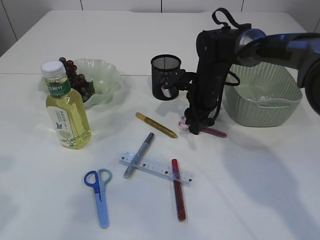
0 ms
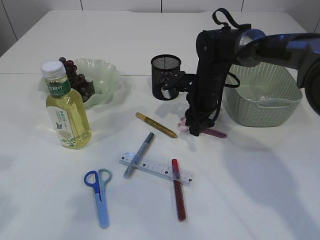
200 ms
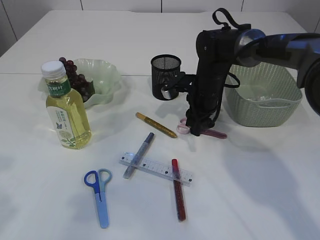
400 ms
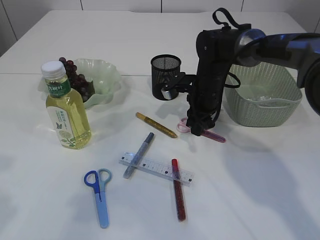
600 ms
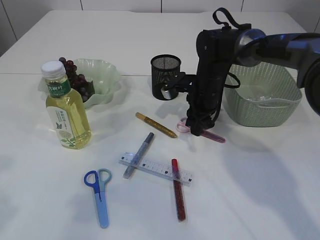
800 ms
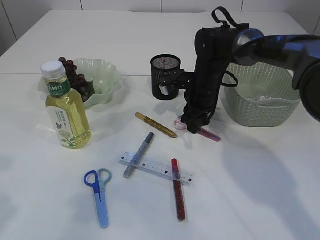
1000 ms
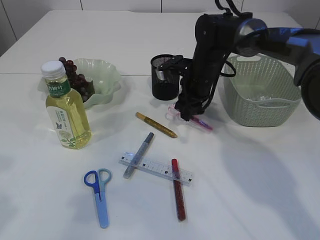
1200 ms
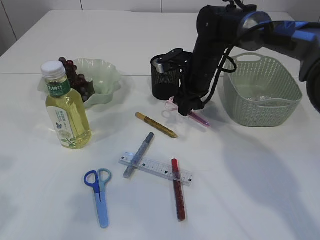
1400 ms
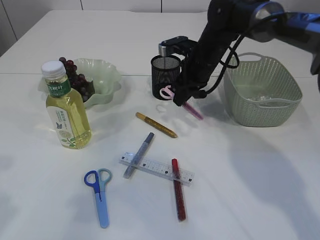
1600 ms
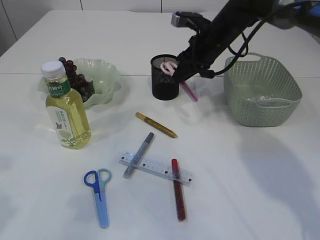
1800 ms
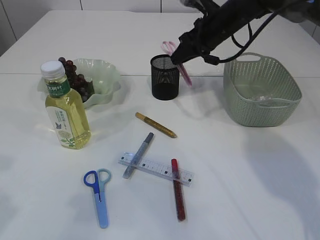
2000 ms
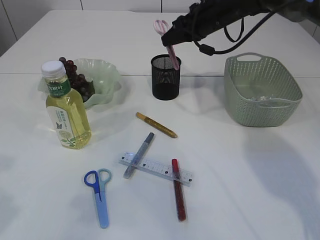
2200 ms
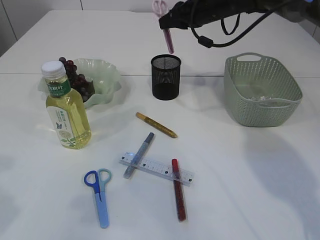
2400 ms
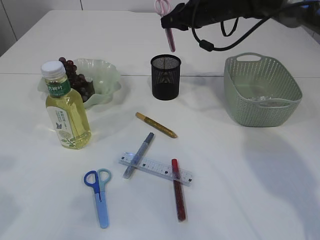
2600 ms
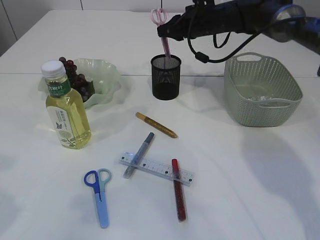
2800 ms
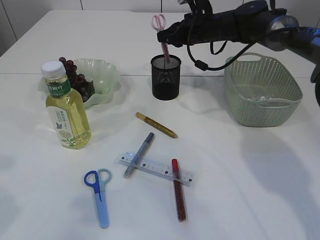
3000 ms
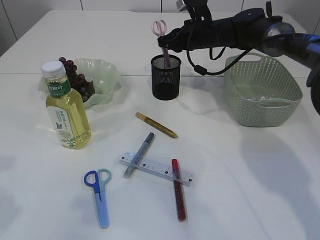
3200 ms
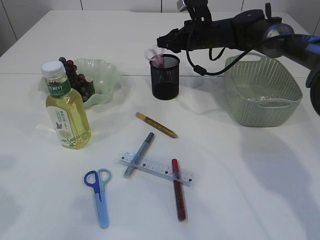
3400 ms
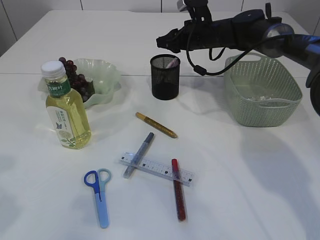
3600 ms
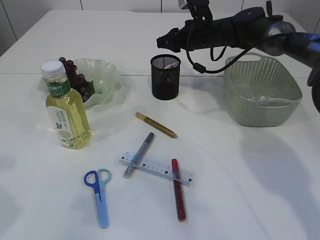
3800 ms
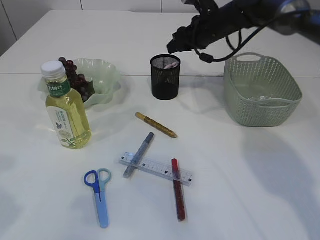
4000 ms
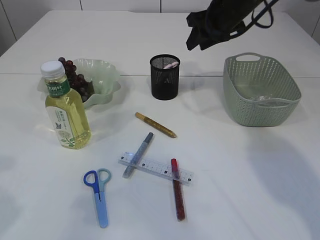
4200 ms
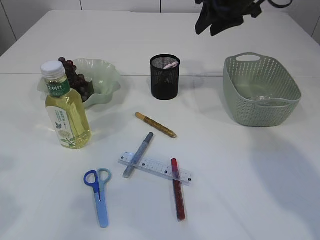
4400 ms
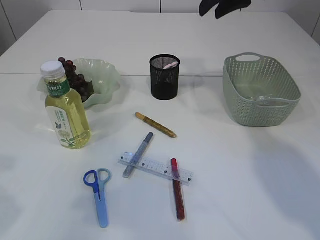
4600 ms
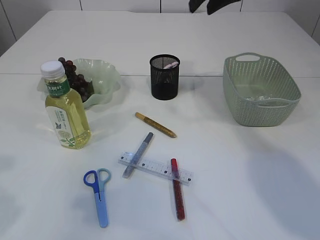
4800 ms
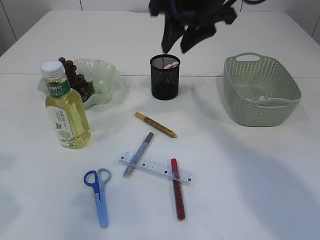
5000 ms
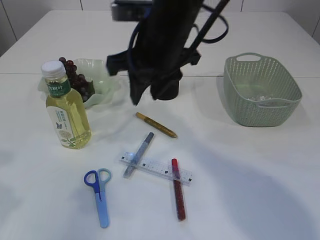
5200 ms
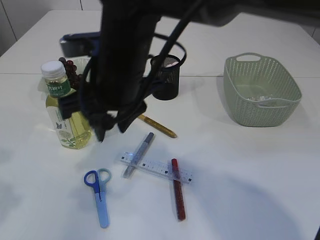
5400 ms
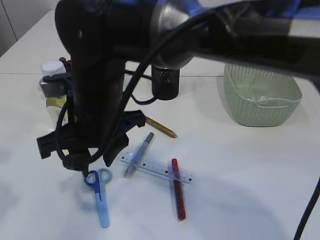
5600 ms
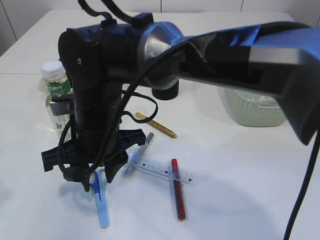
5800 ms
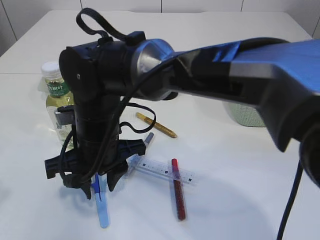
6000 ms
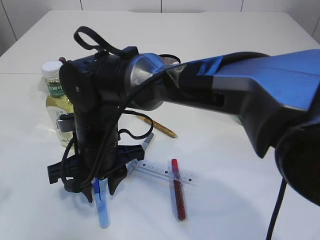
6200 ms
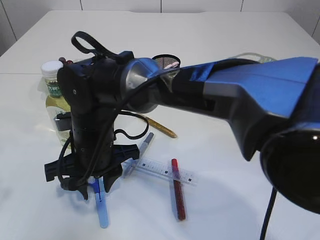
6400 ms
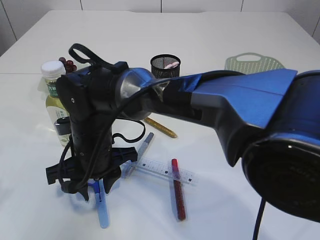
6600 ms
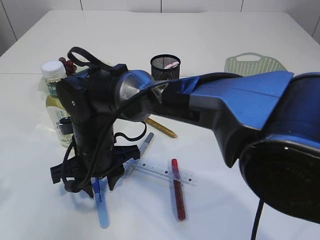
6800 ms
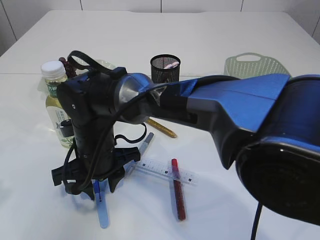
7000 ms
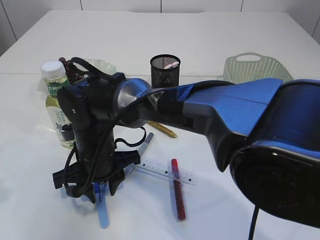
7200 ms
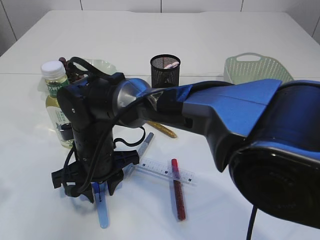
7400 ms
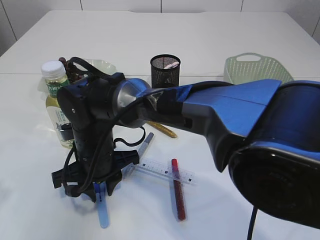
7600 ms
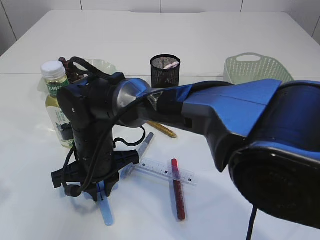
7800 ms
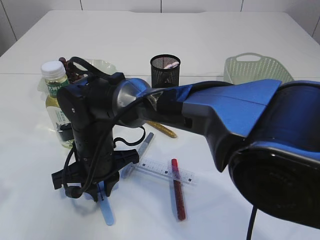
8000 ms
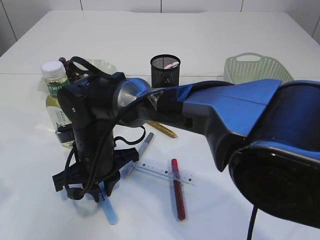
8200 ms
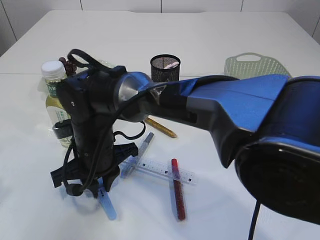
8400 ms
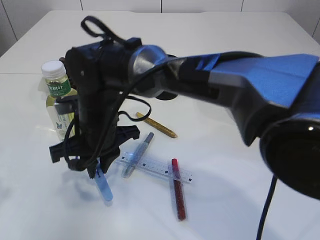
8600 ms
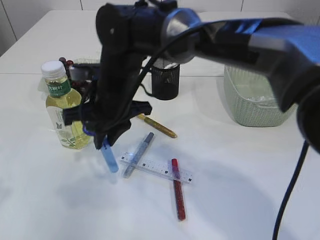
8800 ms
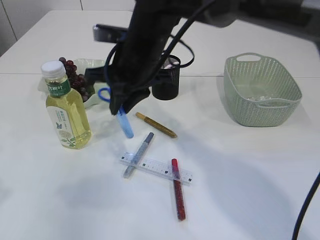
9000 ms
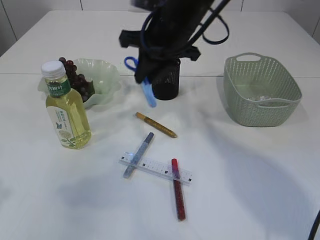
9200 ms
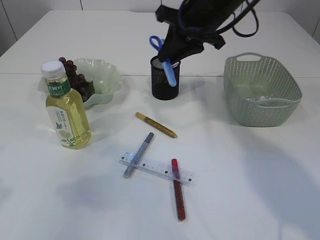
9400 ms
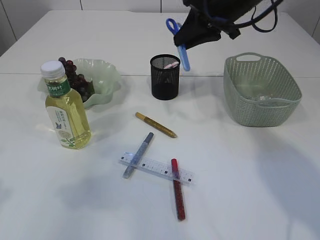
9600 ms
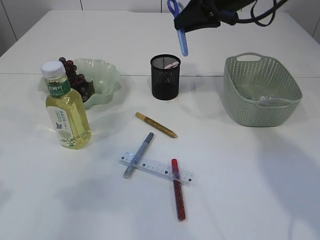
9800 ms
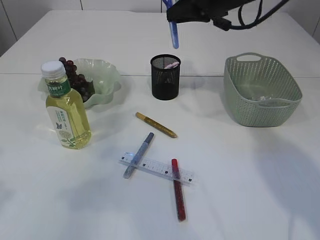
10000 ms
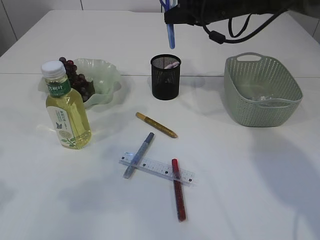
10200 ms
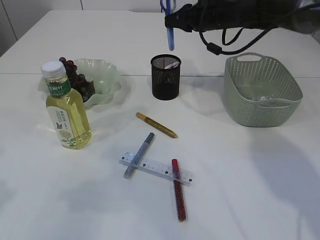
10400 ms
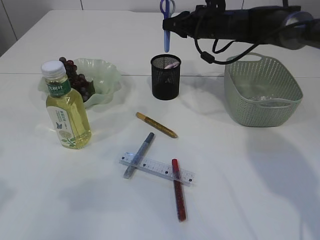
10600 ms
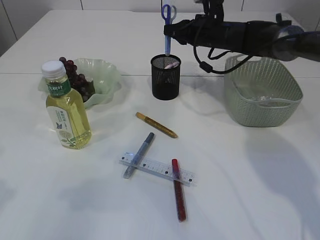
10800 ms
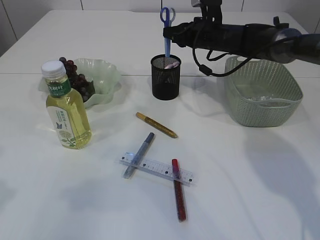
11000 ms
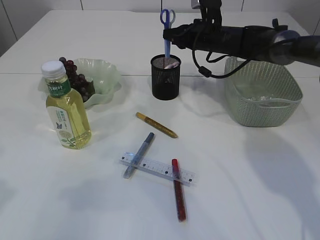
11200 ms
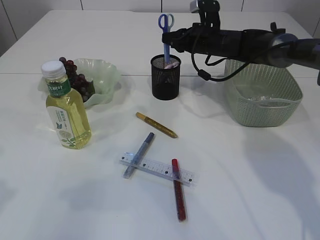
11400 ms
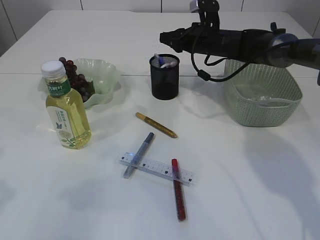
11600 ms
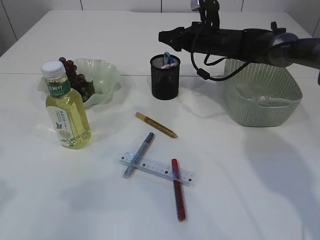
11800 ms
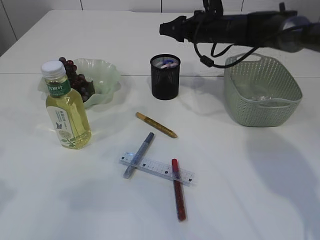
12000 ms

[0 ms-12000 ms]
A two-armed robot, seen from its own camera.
Step, 1800 ms to 4000 ms: Place the pink scissors into the pen holder.
Step, 4200 ms to 8800 ms: pick up the blue scissors.
Step, 9000 ms to 12000 ms: Place the blue scissors into the pen holder.
0 ms to 1600 ms: The right gripper shifts some 5 cm upward, and closes up.
1600 ms to 3000 ms: The right gripper goes about 5 cm forward, and reaches about 10 cm upward, then returns.
3000 ms to 4400 ms: The right gripper shifts approximately 15 cm upward and backward.
4400 ms to 6000 ms: The right gripper heads to the left, backward and downward, covering about 35 cm.
6000 ms to 7600 ms: The right gripper heads downward, covering approximately 5 cm.
7600 ms to 9000 ms: The right gripper moves upward, to the right and forward, approximately 15 cm.
9000 ms to 10400 ms: The right gripper goes roughly 25 cm to the right and forward.

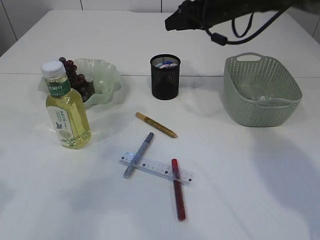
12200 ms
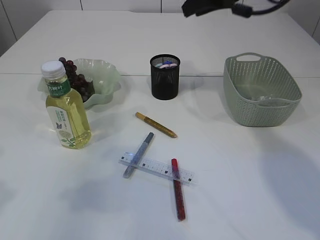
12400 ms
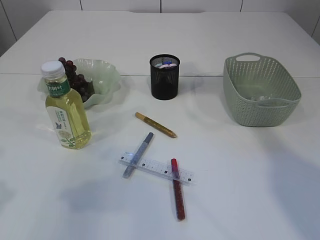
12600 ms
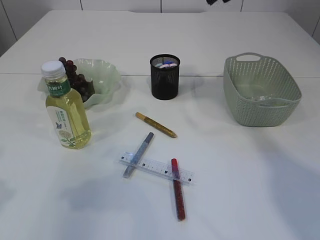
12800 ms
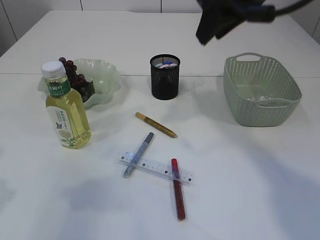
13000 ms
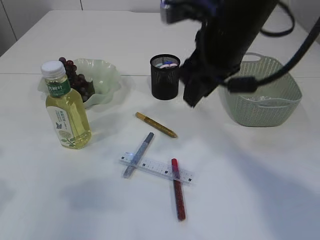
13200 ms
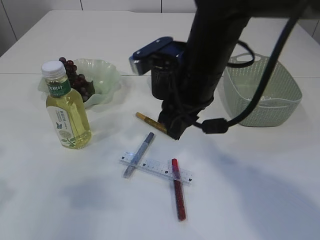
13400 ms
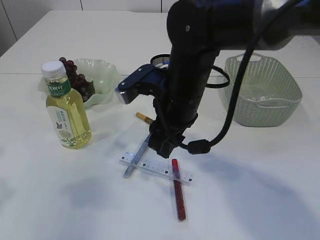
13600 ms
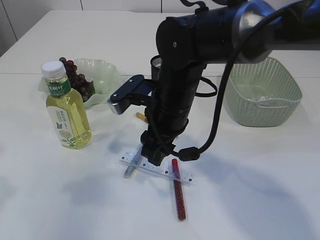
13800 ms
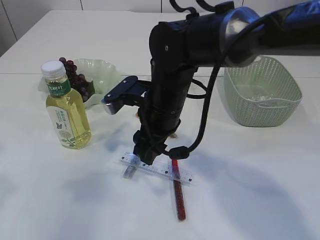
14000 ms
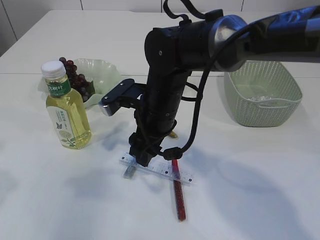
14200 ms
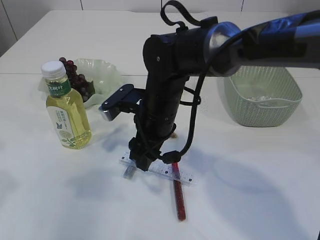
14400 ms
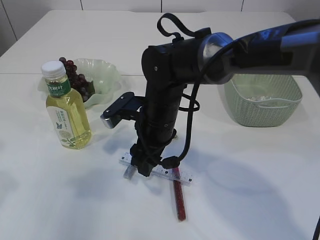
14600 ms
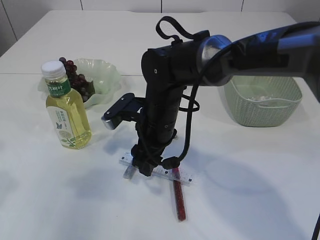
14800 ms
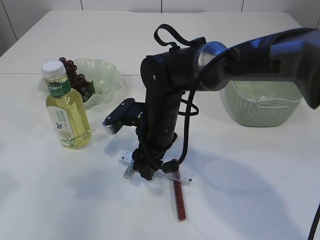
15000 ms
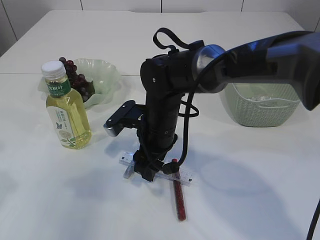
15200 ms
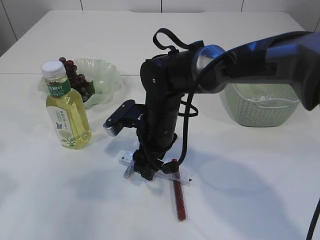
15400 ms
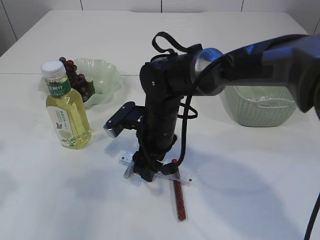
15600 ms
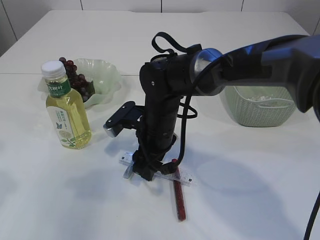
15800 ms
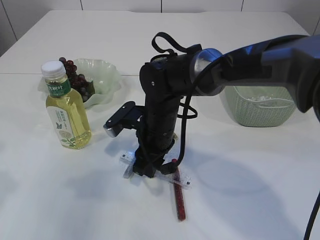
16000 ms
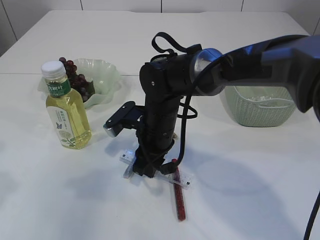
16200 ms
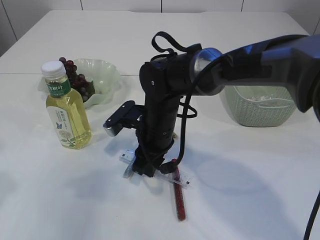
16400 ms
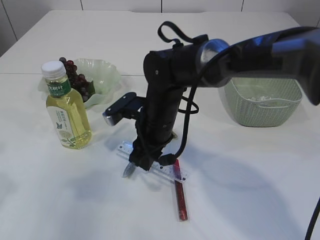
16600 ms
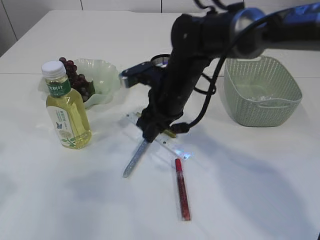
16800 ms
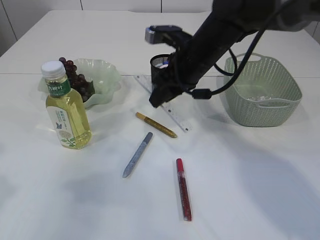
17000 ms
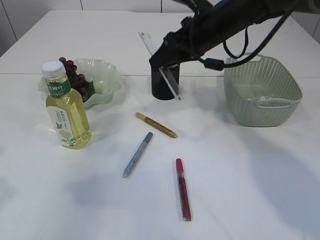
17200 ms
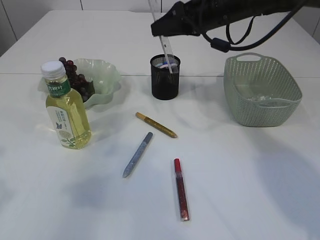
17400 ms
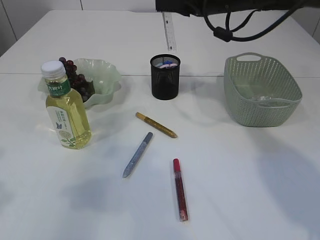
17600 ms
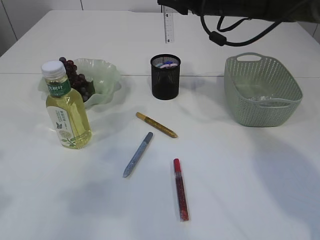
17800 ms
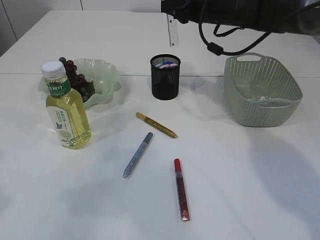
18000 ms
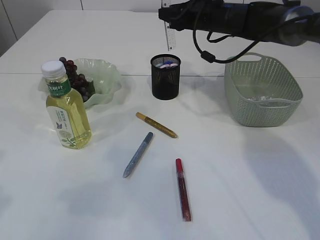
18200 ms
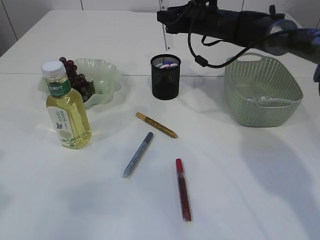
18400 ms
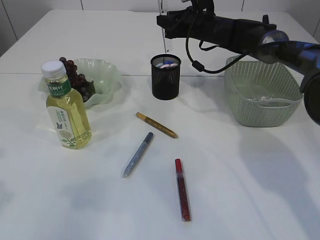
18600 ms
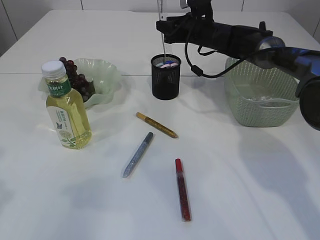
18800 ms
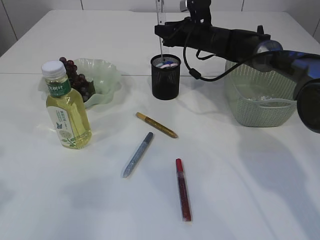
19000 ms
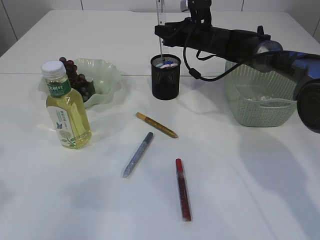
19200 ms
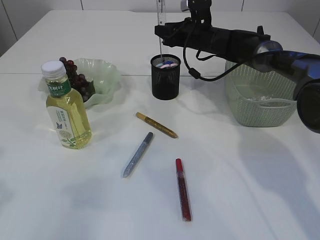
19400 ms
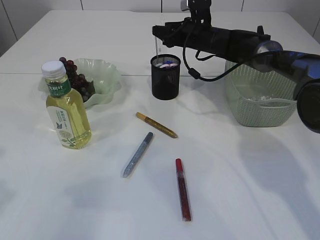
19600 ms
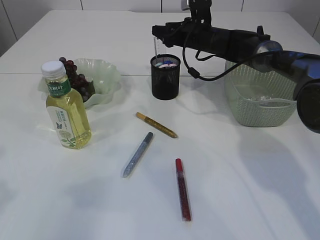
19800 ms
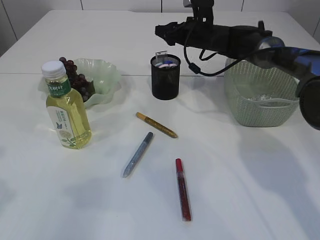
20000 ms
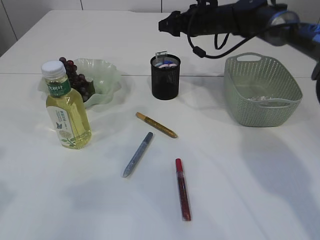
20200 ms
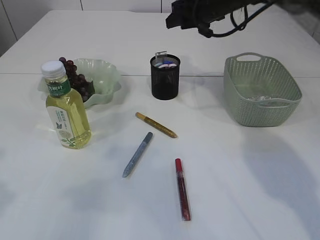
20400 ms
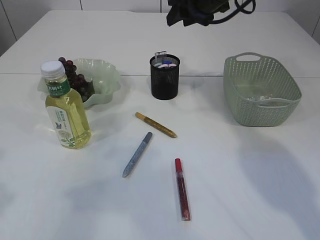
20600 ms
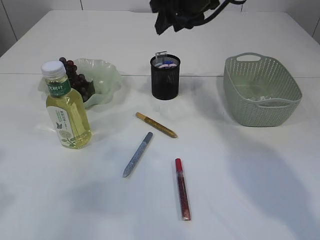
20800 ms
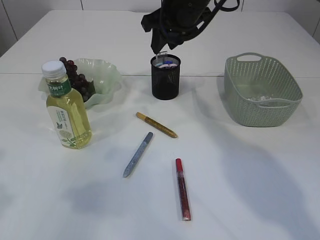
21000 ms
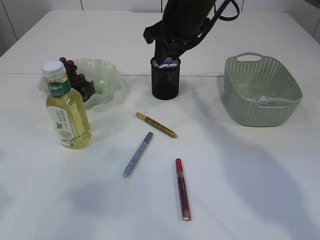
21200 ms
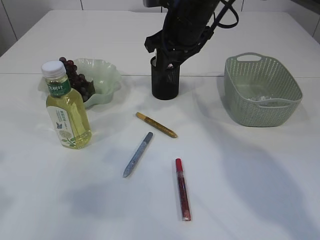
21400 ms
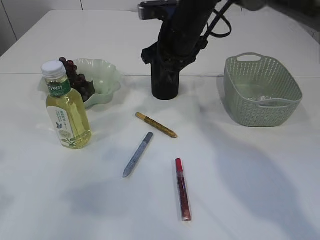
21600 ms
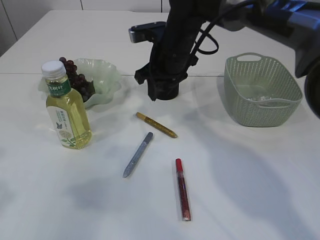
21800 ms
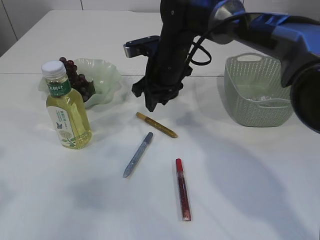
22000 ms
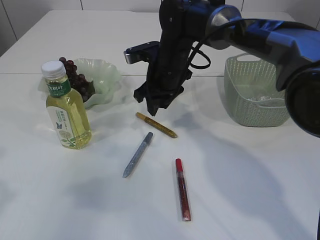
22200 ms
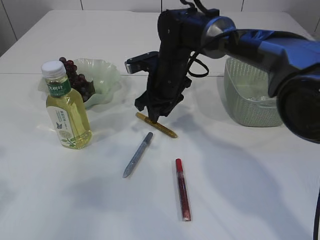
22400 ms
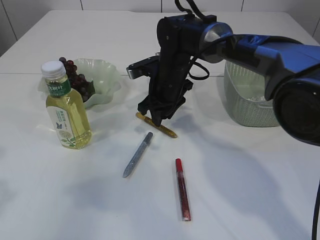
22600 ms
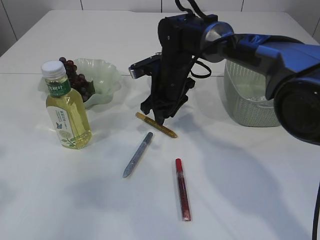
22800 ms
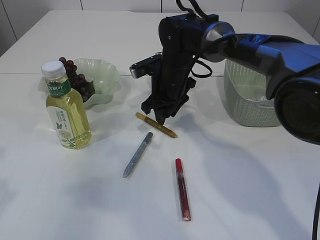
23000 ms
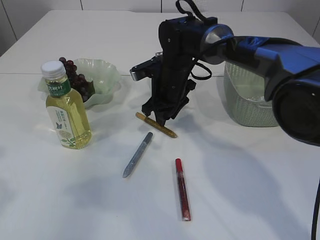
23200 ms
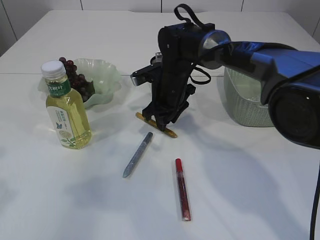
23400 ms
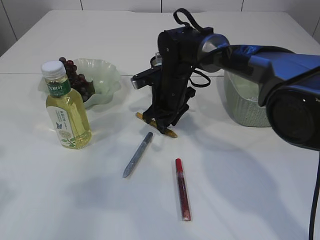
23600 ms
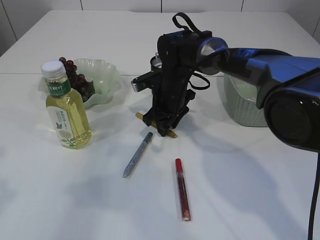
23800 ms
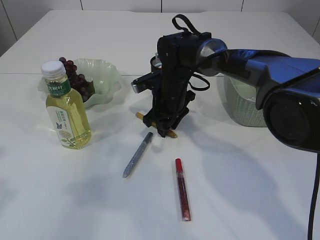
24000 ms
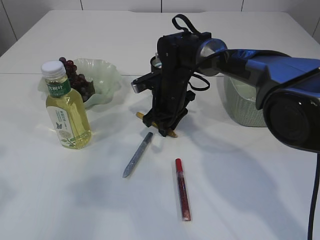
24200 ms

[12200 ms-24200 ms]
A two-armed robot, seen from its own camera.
Step, 12200 ms to 16800 ms: pick up the ruler.
Step, 17000 ms to 20200 ms: Place the ruler into the pen holder.
12200 ms to 13800 ms: The right gripper goes approximately 25 cm backward, to the left and downward.
13800 ms to 15200 ms: The right gripper travels downward by approximately 5 cm.
15200 ms to 16600 ms: The right gripper closes its fingers.
16600 ms to 18200 ms: The right gripper moves forward, to the right and upward, some 25 cm.
18200 ms to 19800 ms: The right gripper travels downward by roughly 5 cm.
19800 ms to 21200 ms: The right gripper moves backward, upward and to the left, some 20 cm.
21200 ms to 22600 ms: The right gripper shifts about 15 cm downward.
22600 ms to 24200 ms: The grippers move only a little.
